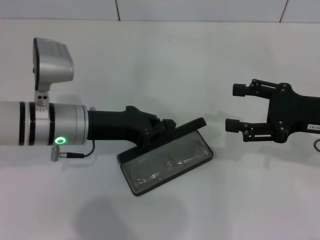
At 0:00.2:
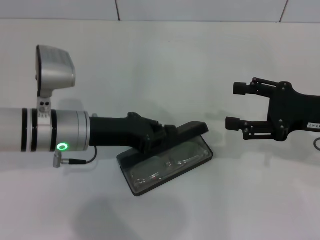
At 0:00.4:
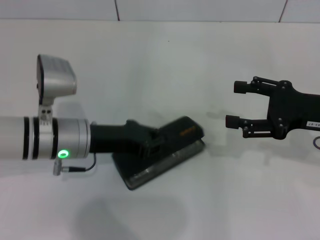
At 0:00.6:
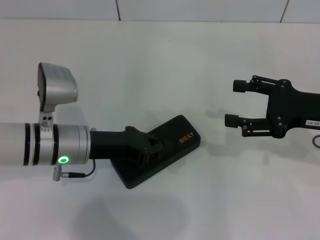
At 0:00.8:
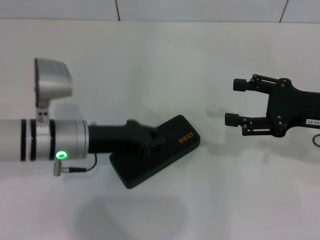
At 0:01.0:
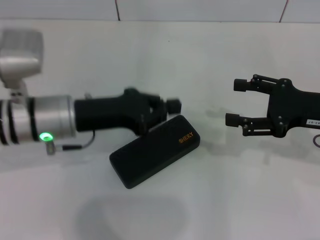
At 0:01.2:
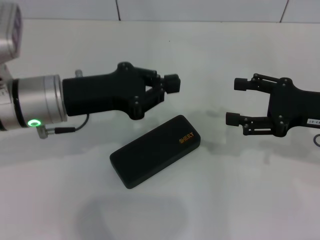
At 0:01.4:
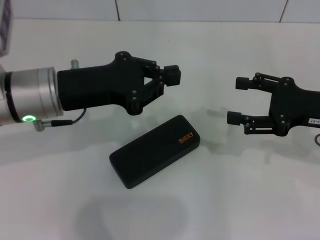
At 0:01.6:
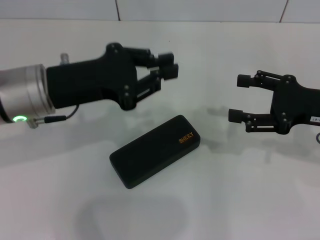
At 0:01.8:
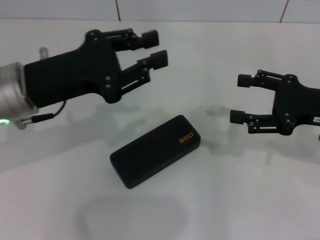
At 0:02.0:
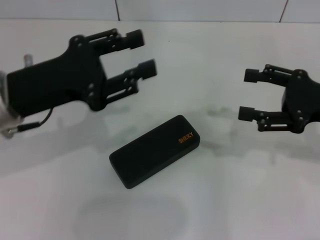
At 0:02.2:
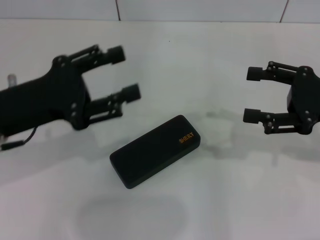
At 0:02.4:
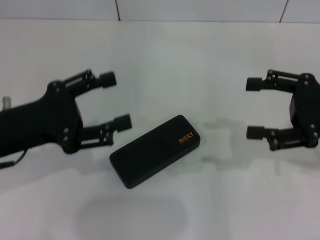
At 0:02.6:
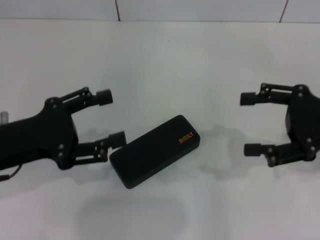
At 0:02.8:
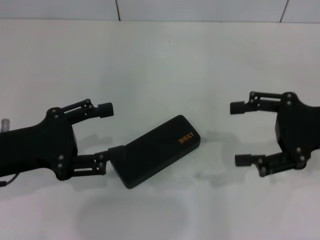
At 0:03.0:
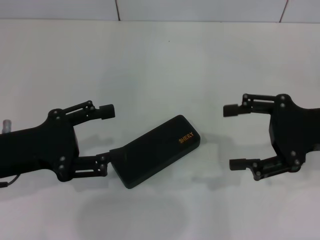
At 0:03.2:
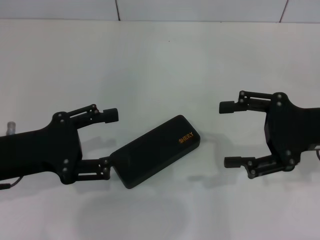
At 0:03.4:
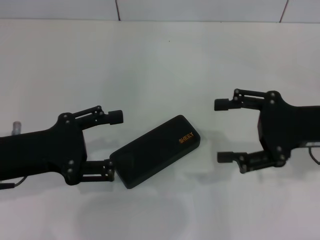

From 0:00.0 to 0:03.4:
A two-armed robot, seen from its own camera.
From 0:00.0 to 0:01.6: The left gripper is displaced upward by approximately 10 cm.
From 0:01.6 to 0:03.4: The left gripper shifts roughly 10 cm to the left and backward, and opens up.
